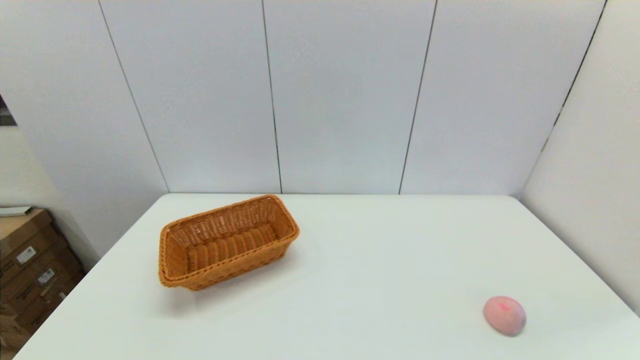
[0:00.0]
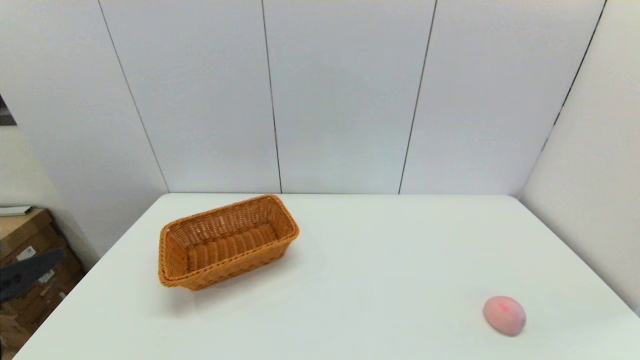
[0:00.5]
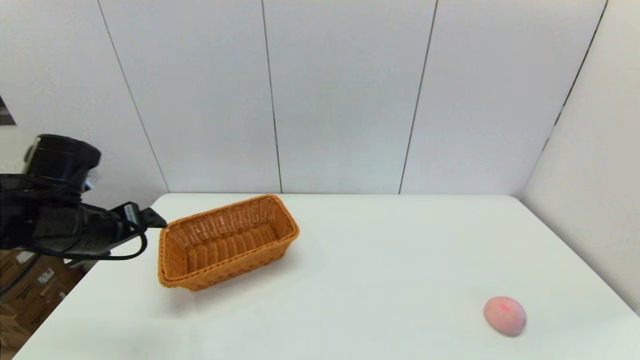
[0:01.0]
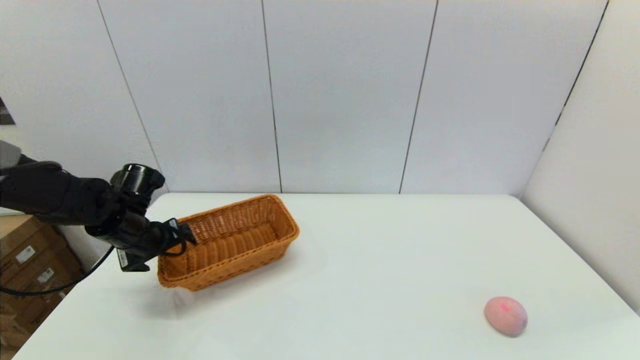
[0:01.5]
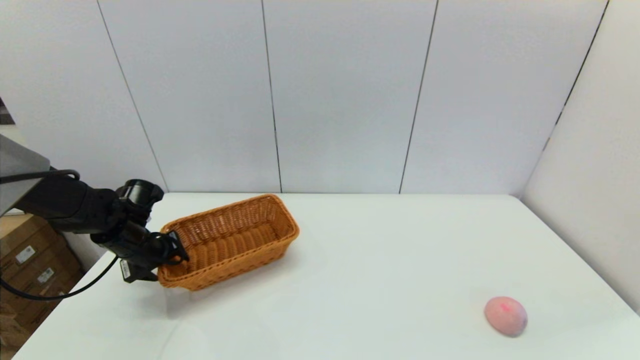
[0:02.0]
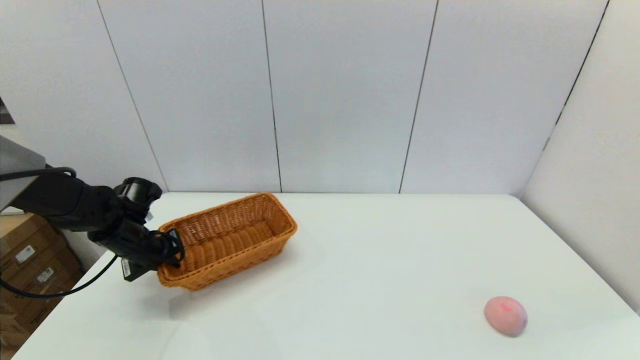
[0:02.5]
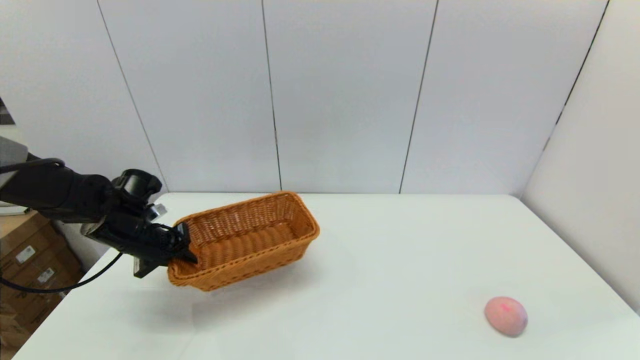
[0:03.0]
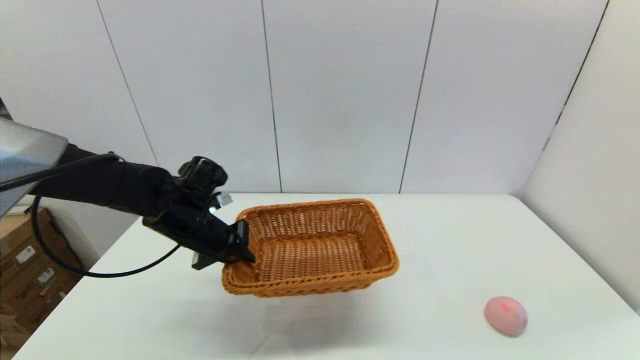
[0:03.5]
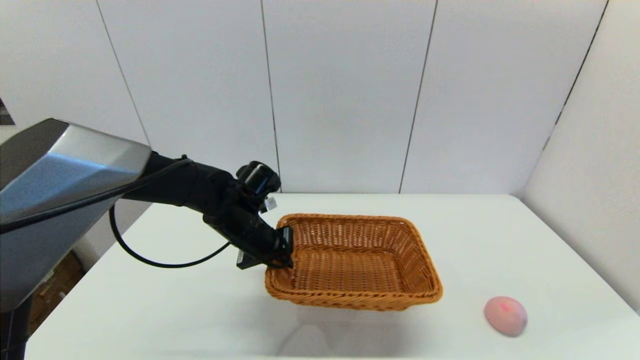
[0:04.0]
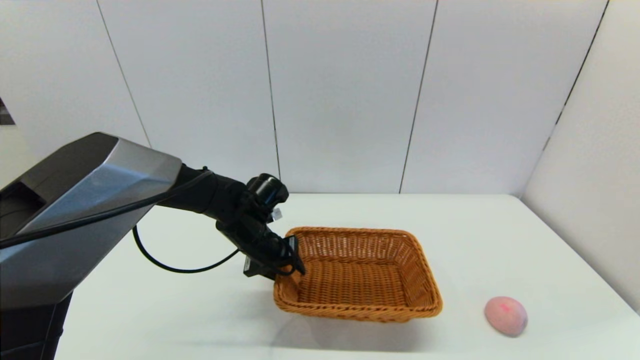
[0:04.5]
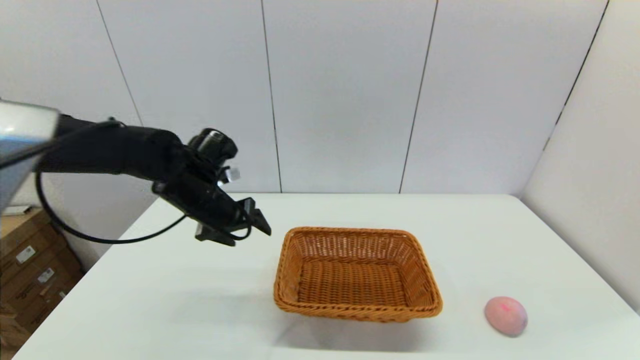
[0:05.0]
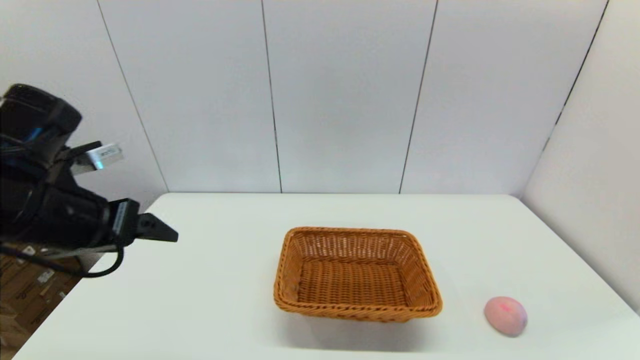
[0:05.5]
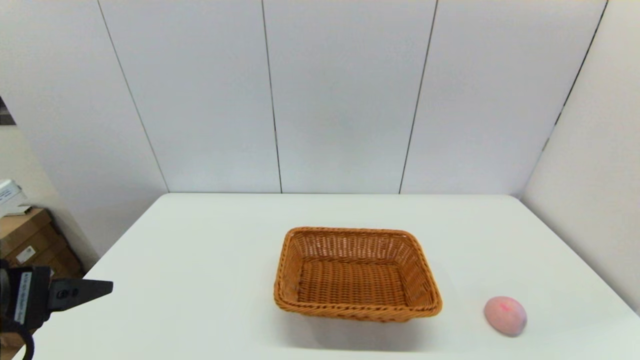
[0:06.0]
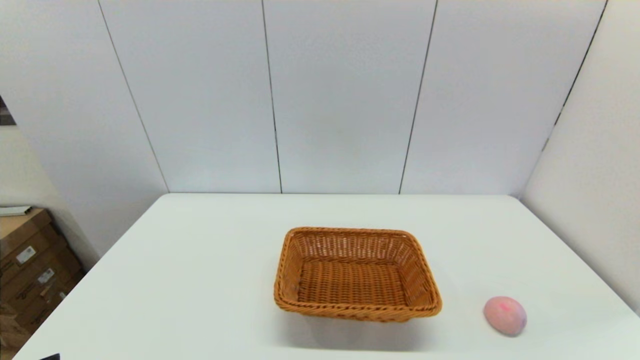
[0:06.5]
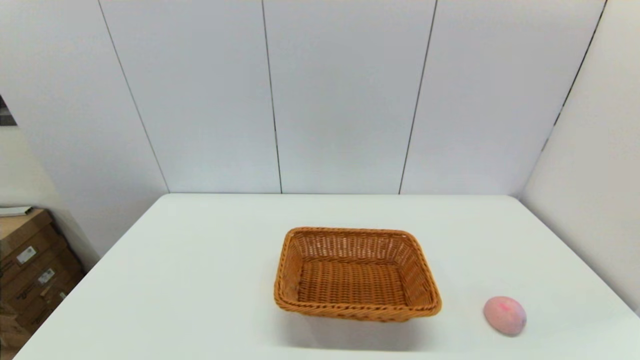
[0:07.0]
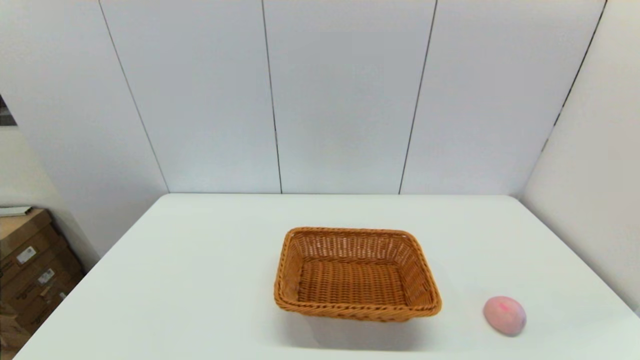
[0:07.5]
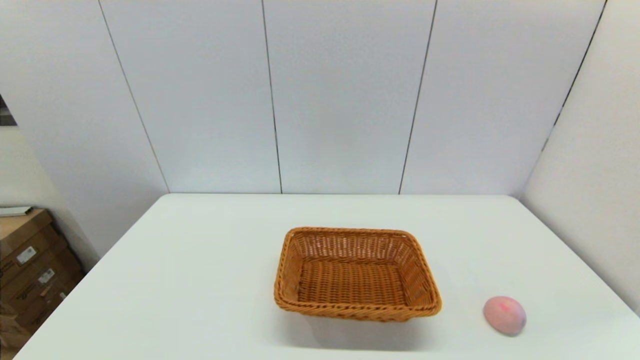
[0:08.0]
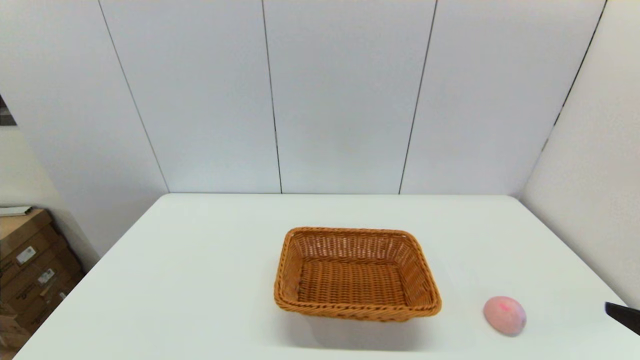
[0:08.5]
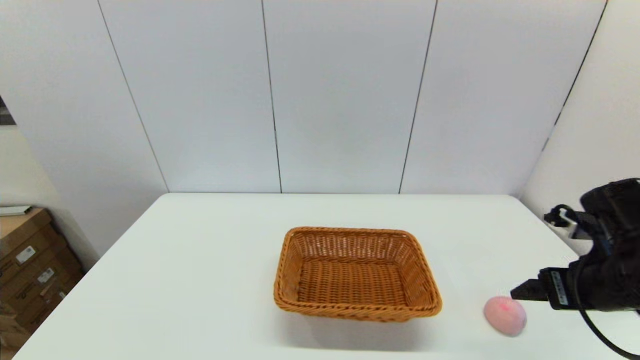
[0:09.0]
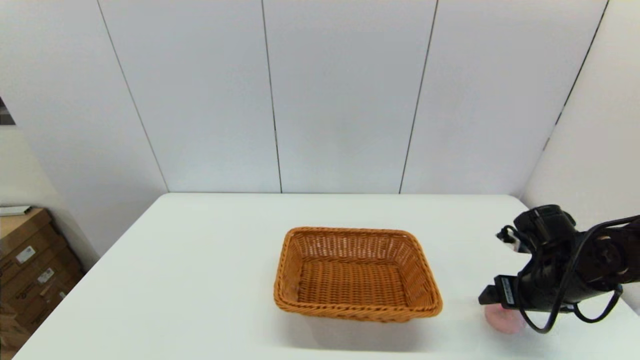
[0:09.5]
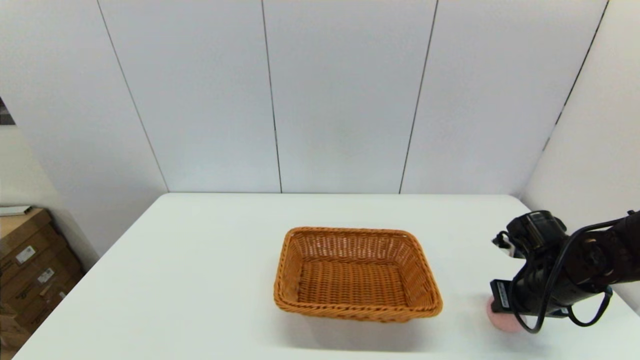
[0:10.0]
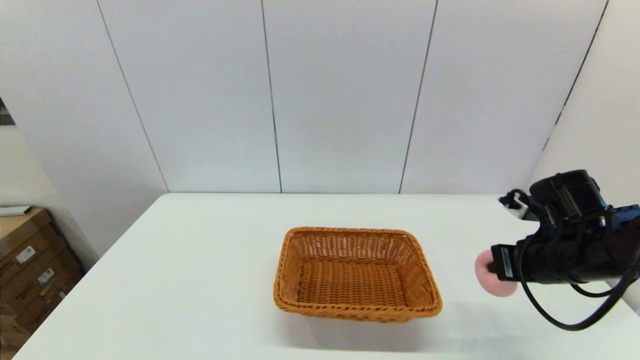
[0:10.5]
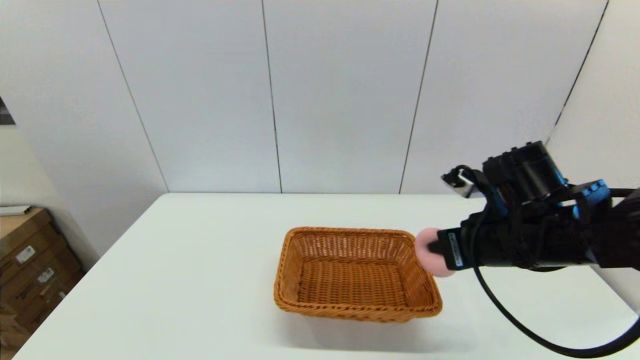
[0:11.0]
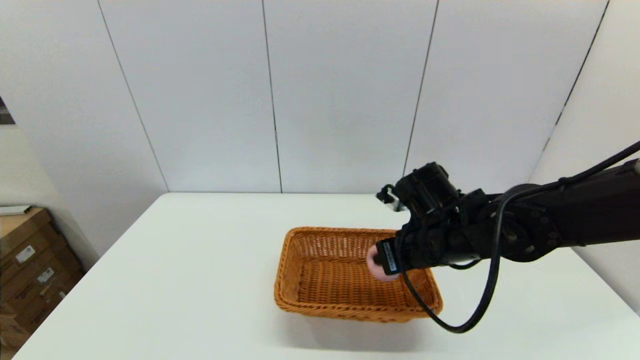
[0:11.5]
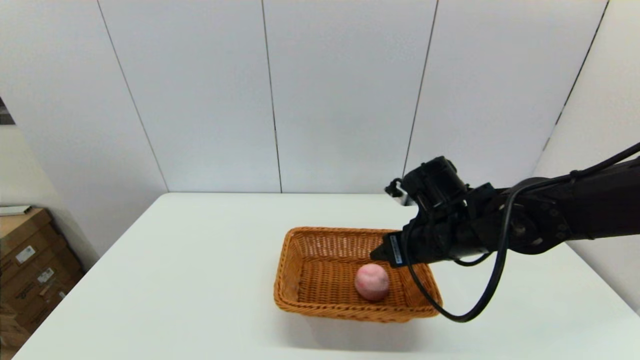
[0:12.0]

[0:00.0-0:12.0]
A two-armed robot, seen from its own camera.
Step, 0:00.0 to 0:02.0: Grasp the light basket with the left gripper.
Step, 0:03.0 to 0:04.5: Place the light basket on the middle of the table with the left gripper.
Step, 0:05.0 to 0:10.0: Grasp the peach with the right gripper.
Step, 0:10.5 to 0:11.5: Place the peach into the light basket with the right gripper.
0:00.0 to 0:02.0: The left gripper heads forward, covering some 40 cm, and closes its fingers.
0:02.0 to 0:04.0: The left gripper shifts approximately 20 cm to the right, and closes up.
0:04.0 to 0:06.0: The left gripper moves backward, to the left and upward, approximately 30 cm, and opens.
0:06.0 to 0:08.0: The left gripper moves downward and backward, roughly 20 cm.
0:08.0 to 0:10.0: The right gripper travels forward by about 30 cm, and closes up.
0:10.0 to 0:12.0: The right gripper moves to the left and upward, some 20 cm, and opens.

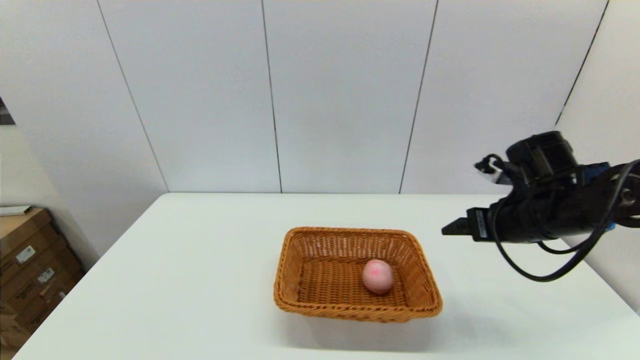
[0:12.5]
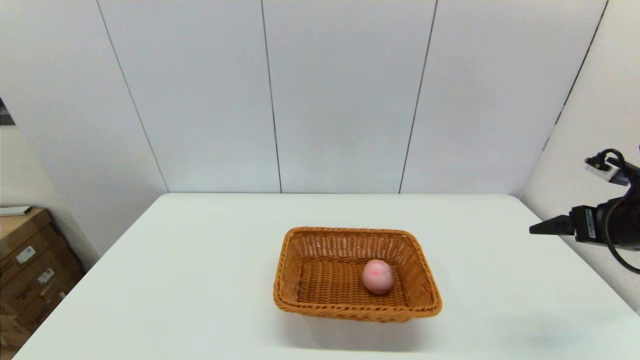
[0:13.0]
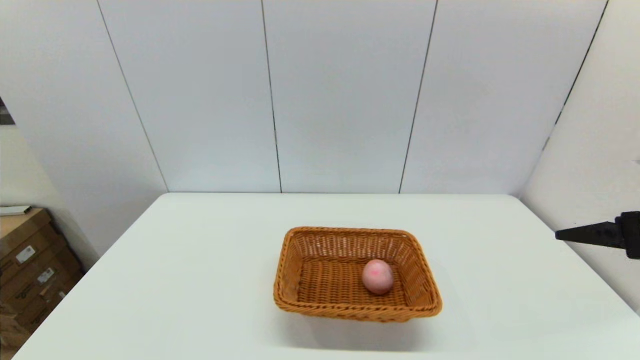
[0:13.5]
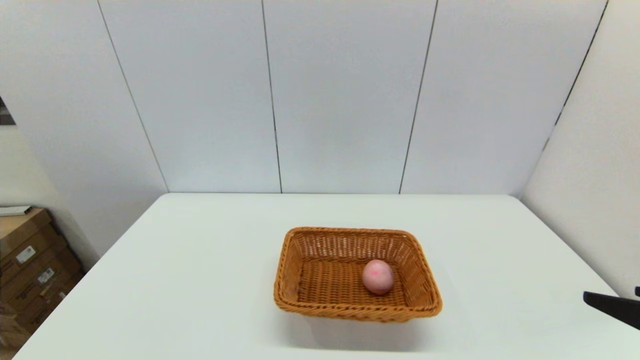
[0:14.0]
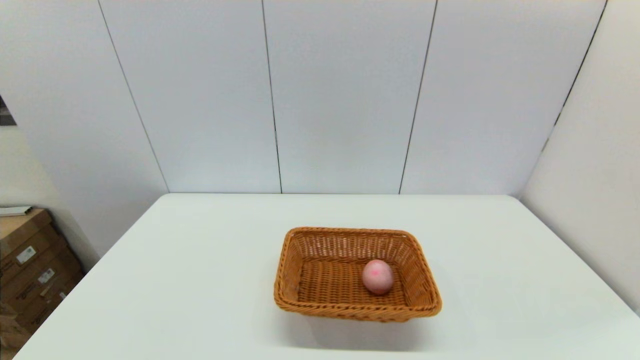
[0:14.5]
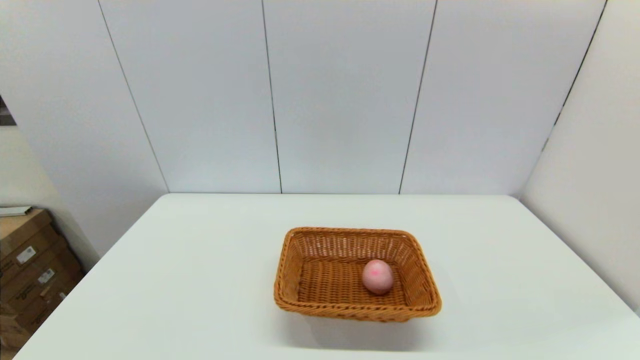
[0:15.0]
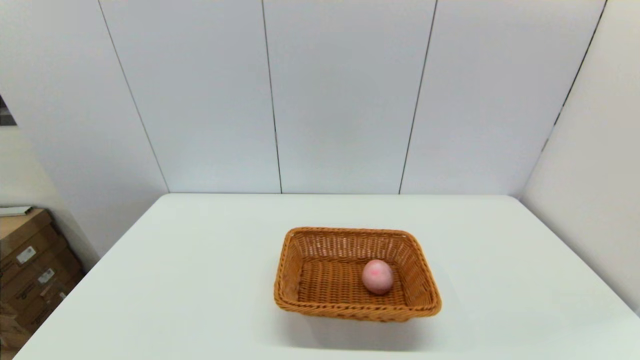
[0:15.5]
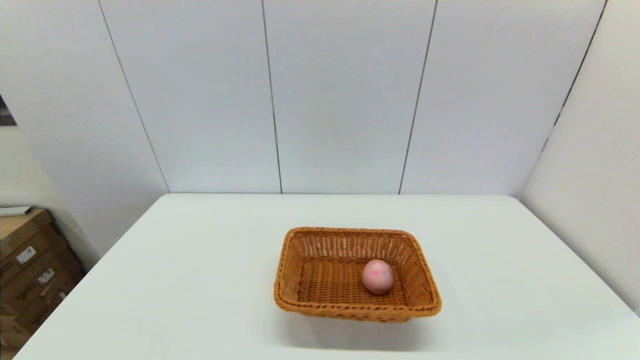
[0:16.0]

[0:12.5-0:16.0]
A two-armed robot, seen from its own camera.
0:12.5 to 0:14.5: The right gripper travels backward by roughly 30 cm.
